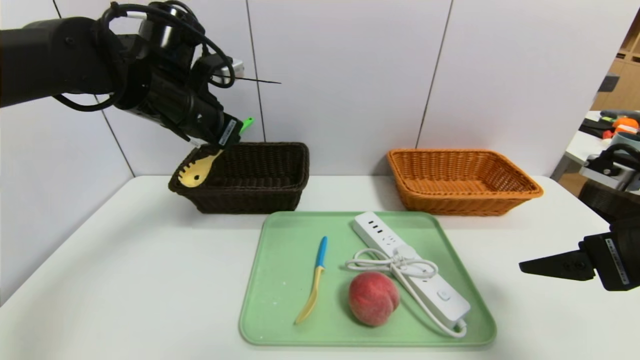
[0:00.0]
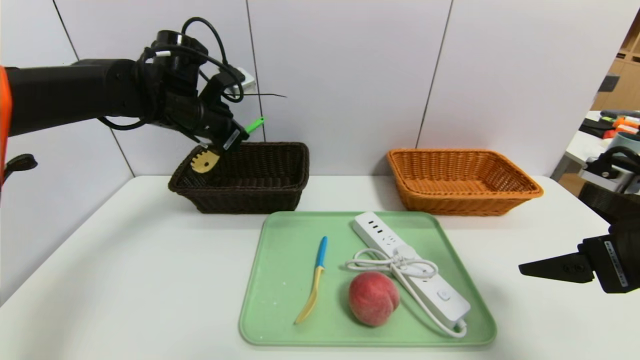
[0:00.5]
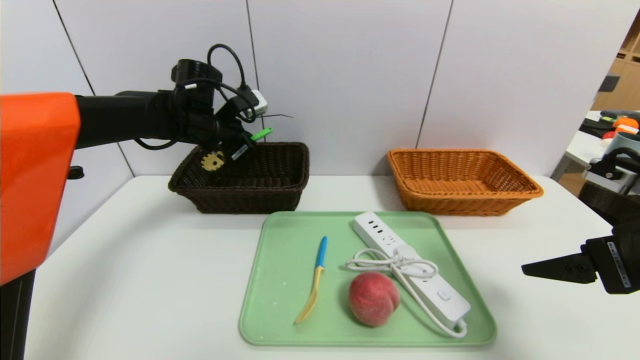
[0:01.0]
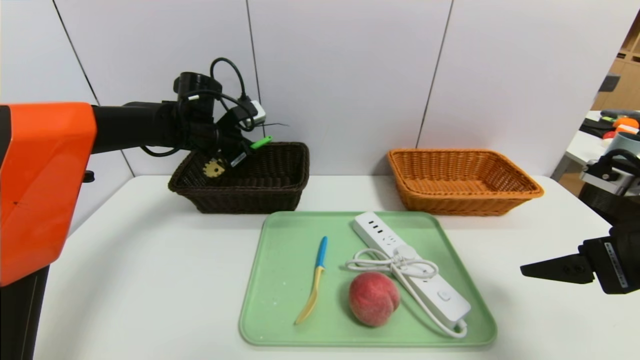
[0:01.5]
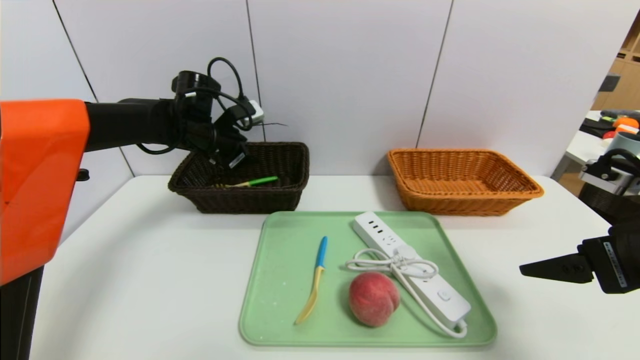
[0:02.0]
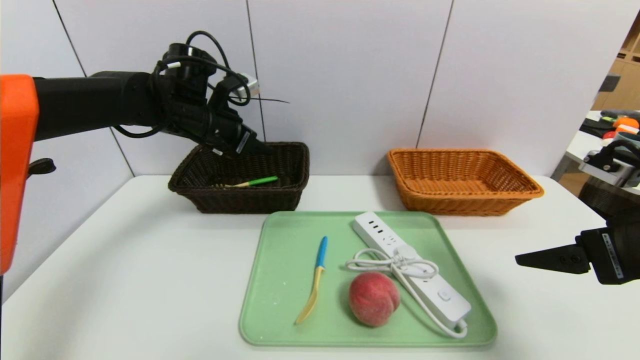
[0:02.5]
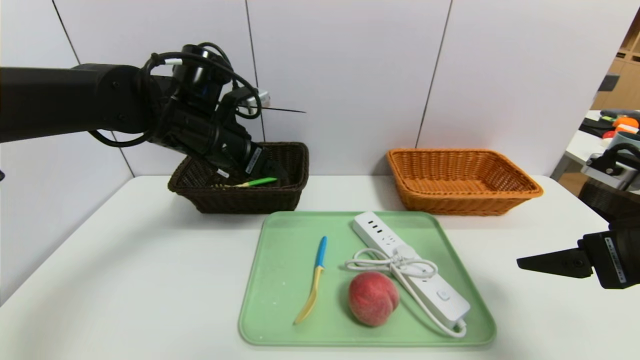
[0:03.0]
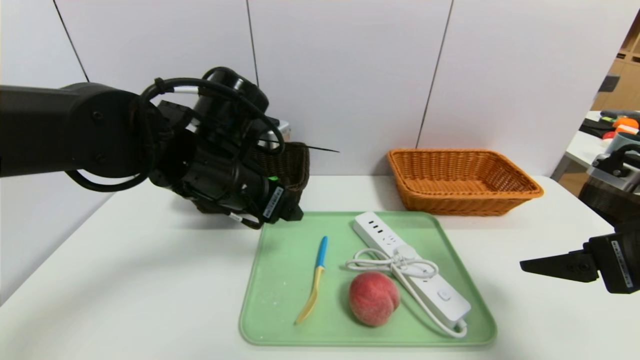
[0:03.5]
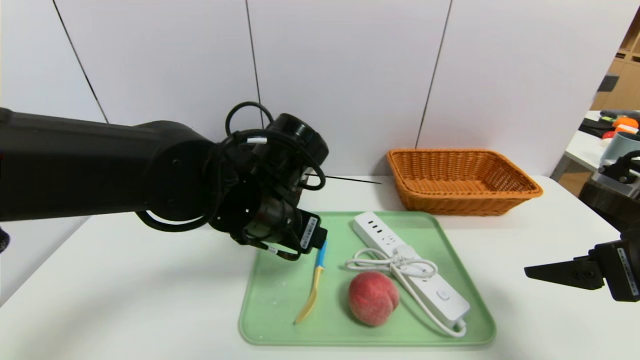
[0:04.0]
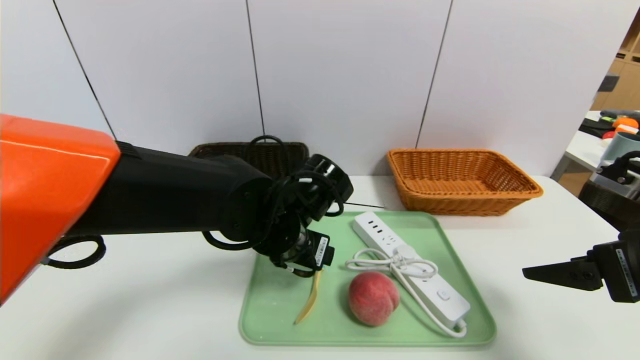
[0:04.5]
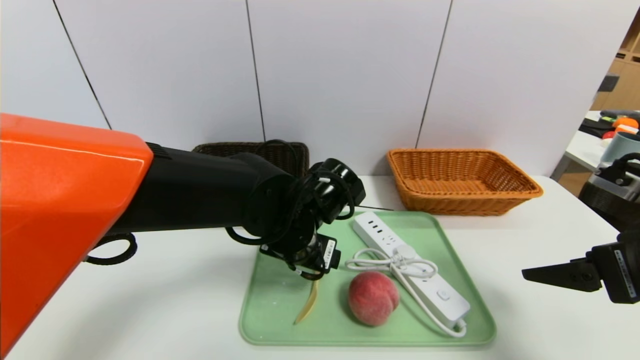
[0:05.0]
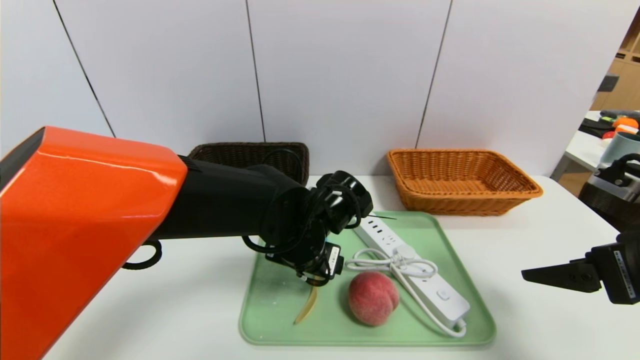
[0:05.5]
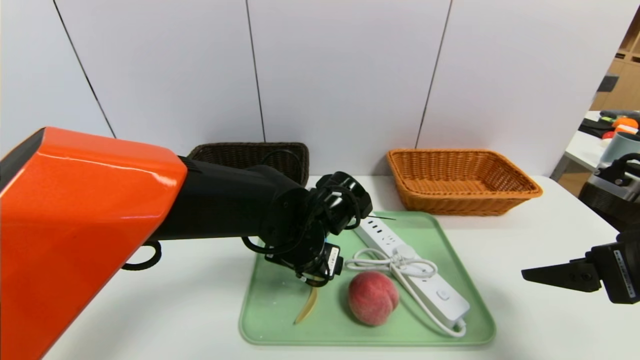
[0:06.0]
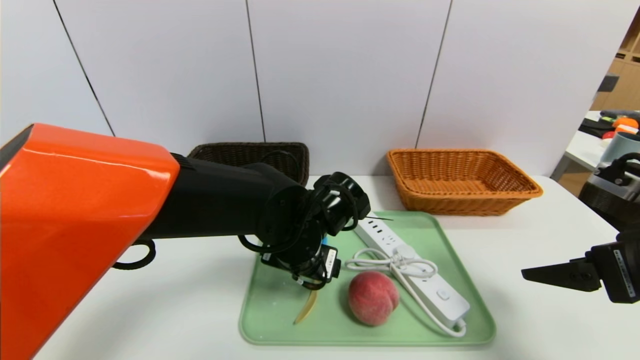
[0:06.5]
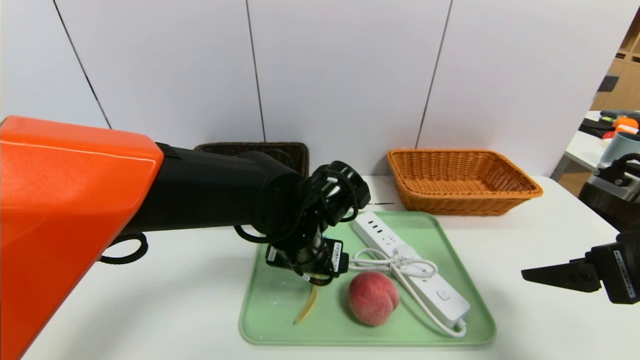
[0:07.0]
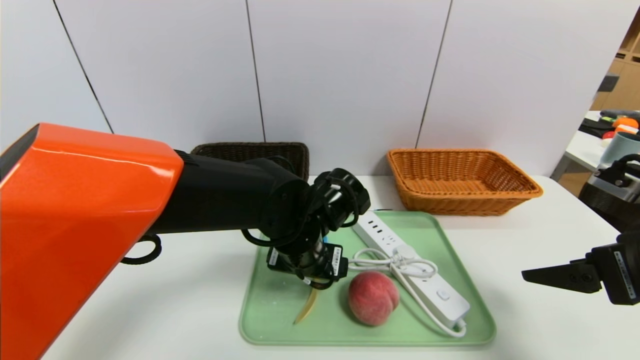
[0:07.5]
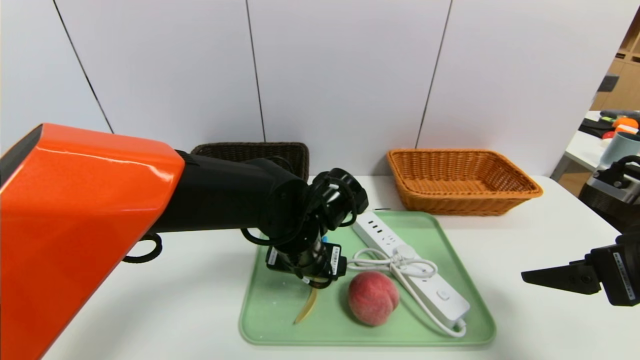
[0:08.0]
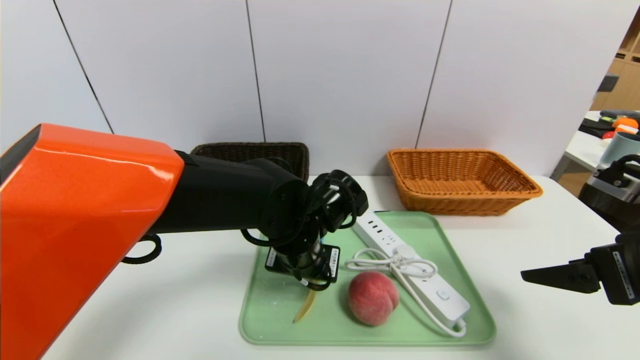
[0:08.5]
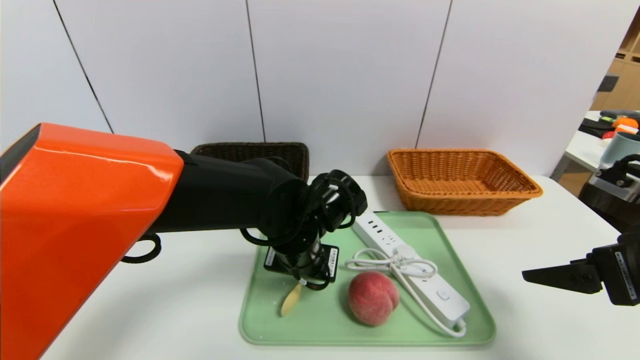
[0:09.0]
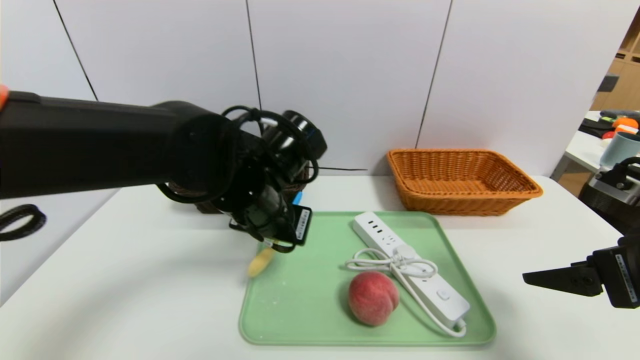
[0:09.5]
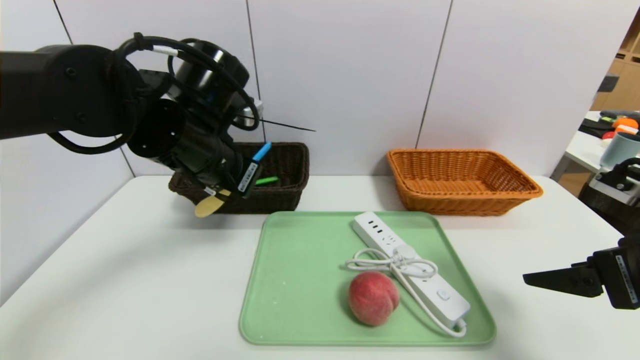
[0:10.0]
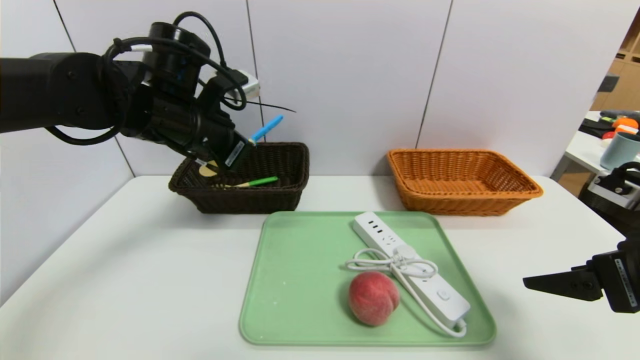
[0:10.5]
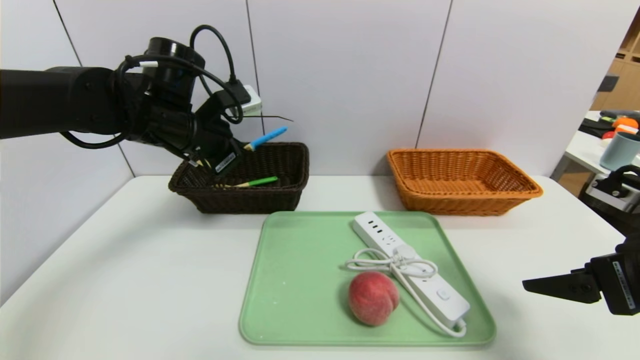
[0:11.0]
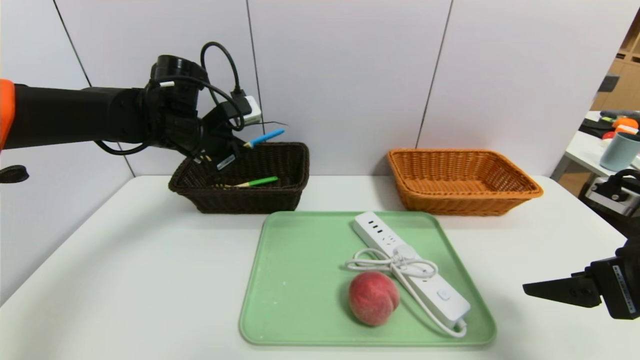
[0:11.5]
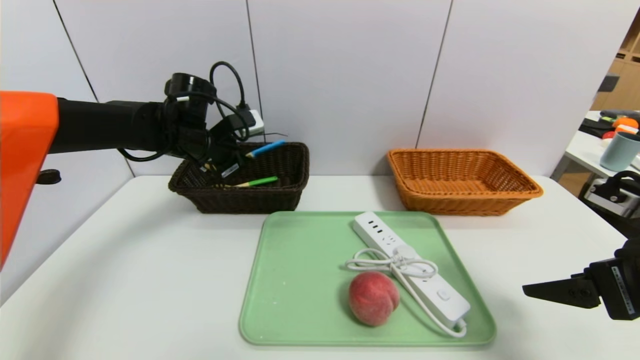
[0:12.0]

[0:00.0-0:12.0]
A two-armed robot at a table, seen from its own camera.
Task of the whole recording: place the food in the right basket with the right gripper, and place the non food items in the left basket with the left gripper.
Step, 0:00.0 to 0:02.5: Grasp the back scratcher and put it in the left basket.
0:00.0 to 0:02.0: The left gripper travels forward and downward by approximately 15 cm, and opens up.
0:02.0 to 0:04.0: The left gripper heads backward and to the right, covering some 25 cm.
0:04.0 to 0:06.0: The left gripper is displaced downward by roughly 5 cm.
0:06.0 to 0:08.0: The grippers move only a little.
0:08.0 to 0:10.0: The left gripper goes some 15 cm upward and to the left, and closes up.
0:10.0 to 0:12.0: The left gripper heads forward, to the left and downward, covering some 15 cm.

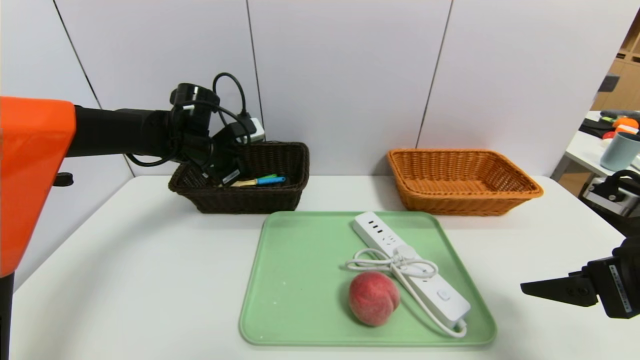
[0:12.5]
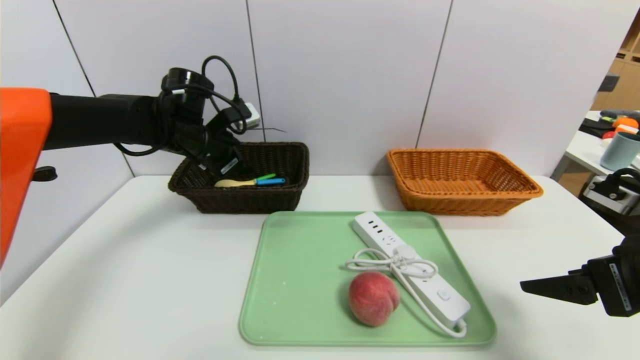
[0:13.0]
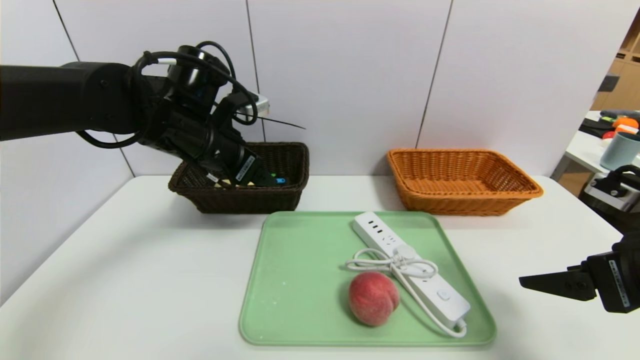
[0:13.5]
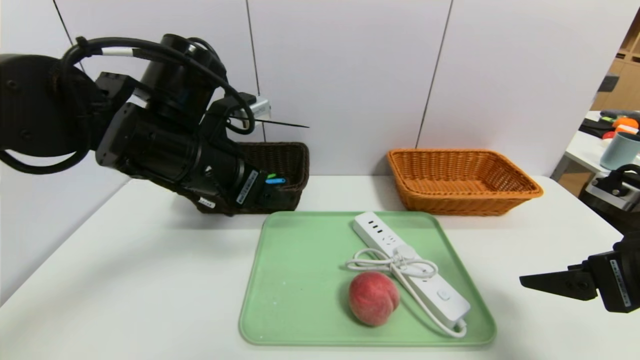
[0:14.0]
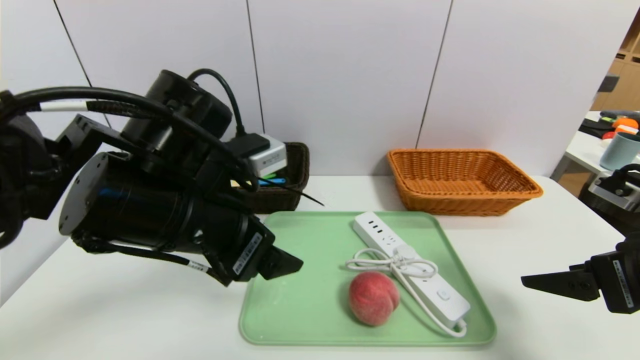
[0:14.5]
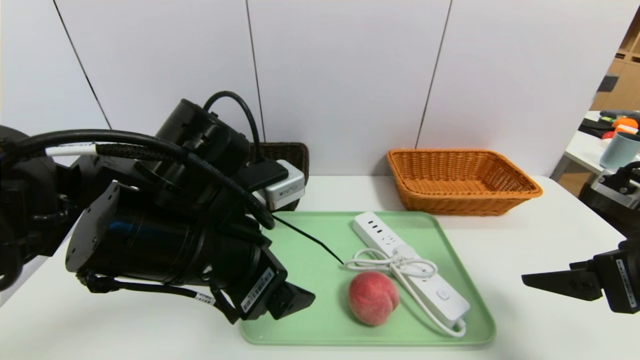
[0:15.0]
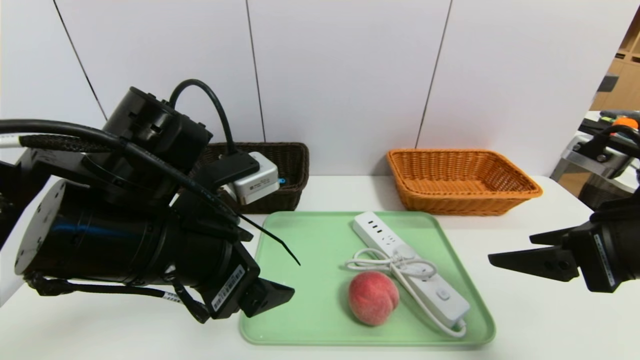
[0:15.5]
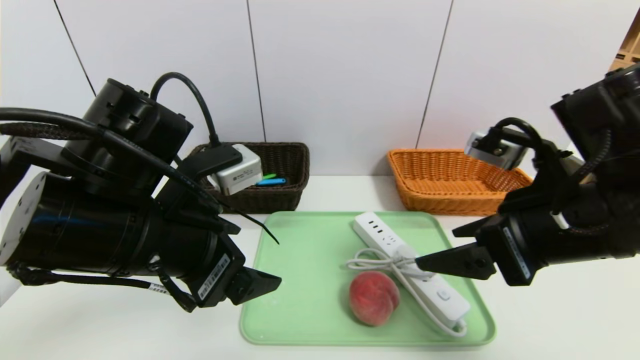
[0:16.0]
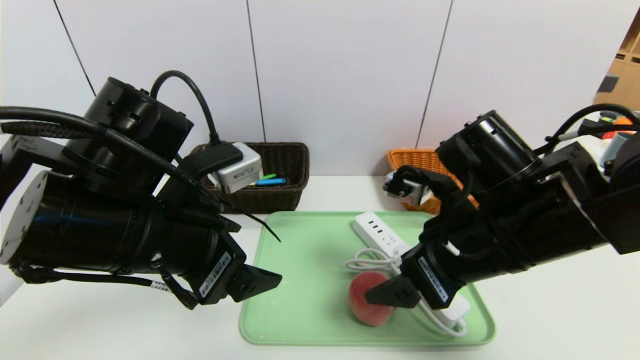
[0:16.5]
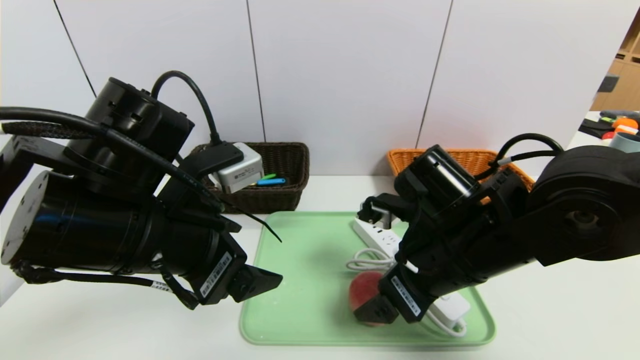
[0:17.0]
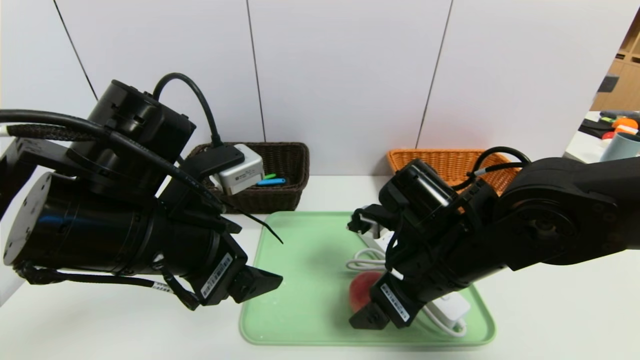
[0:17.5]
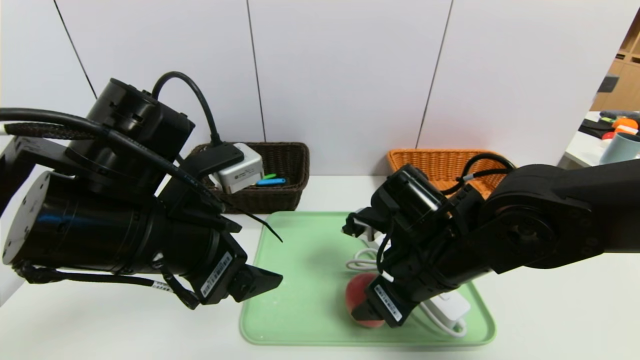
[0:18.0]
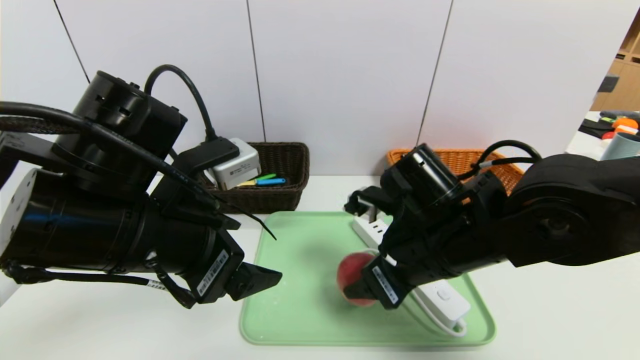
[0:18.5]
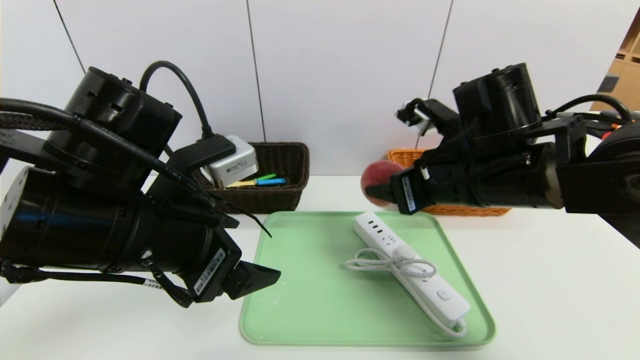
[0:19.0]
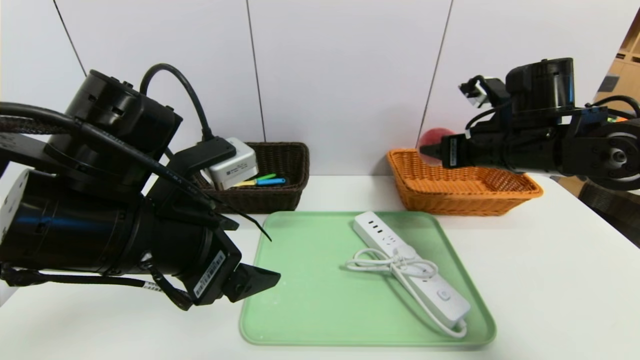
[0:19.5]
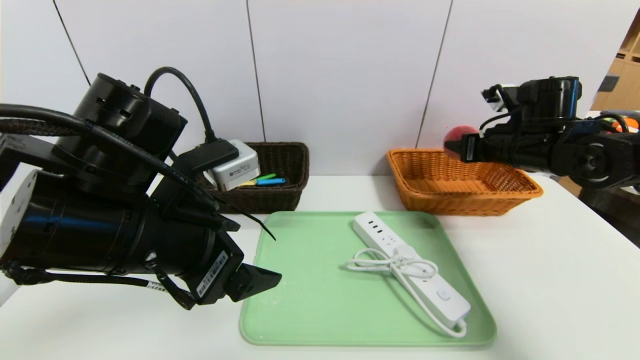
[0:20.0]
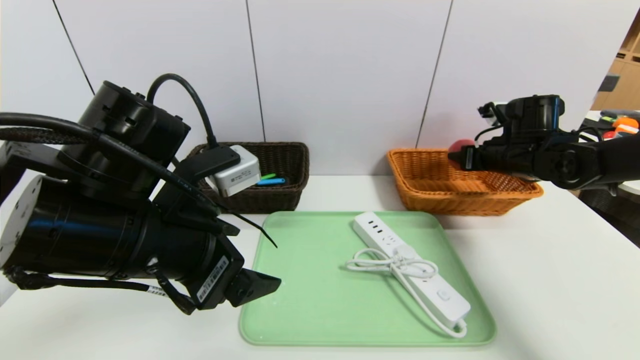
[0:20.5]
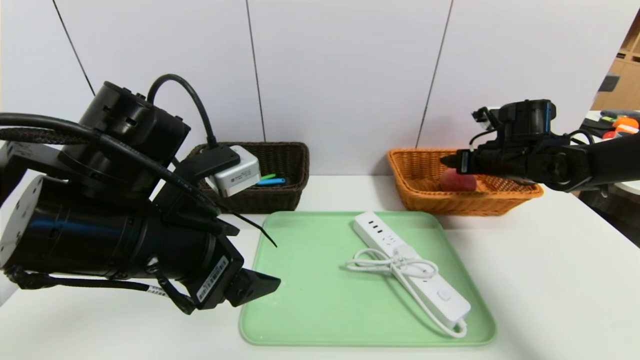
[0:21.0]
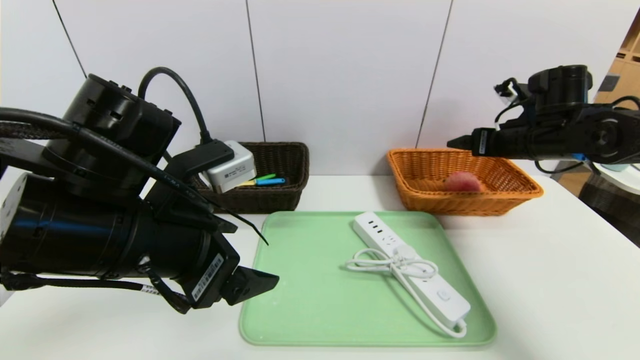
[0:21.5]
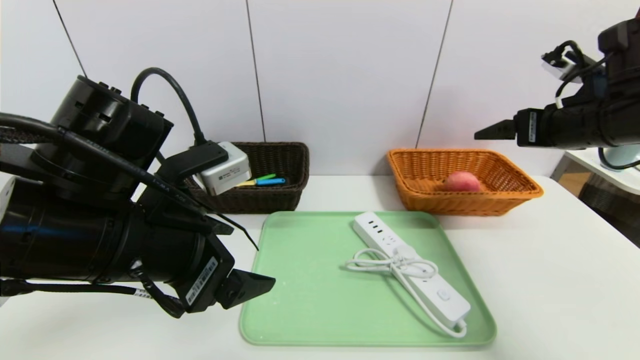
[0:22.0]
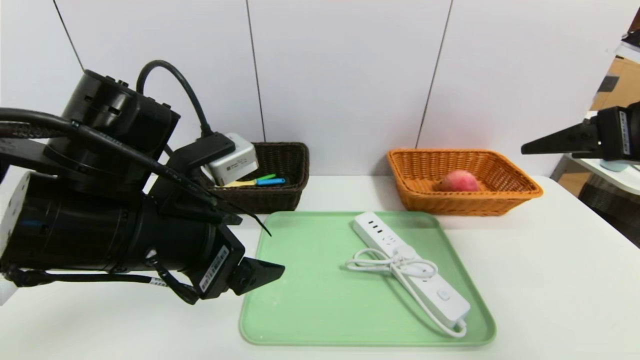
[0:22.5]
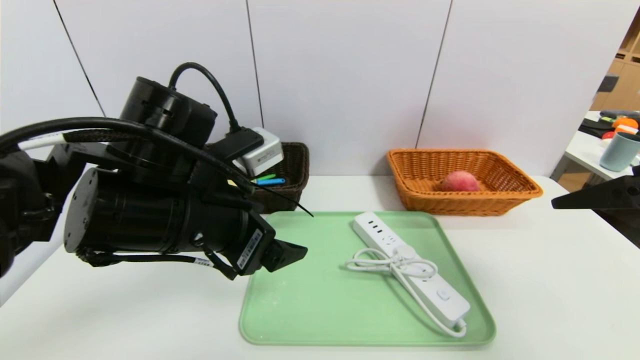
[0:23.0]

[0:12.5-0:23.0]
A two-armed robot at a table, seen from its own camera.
Task of the whole recording: place the food in the right basket with the right gripper, and place the non food items in the left basket with the left gripper.
Step, 0:14.0 to 0:21.5: Grasp the peach and put it in the right basket.
0:12.5 to 0:14.5: The left gripper moves backward, approximately 25 cm, and opens its fingers.
0:14.5 to 0:16.5: The right gripper moves to the left, some 15 cm.
0:16.5 to 0:19.0: The right gripper heads forward, covering roughly 5 cm, and closes.
0:19.0 to 0:21.0: The right gripper travels to the right, forward and downward by some 25 cm, and opens its fingers.
0:21.0 to 0:23.0: The right gripper shifts approximately 30 cm backward and upward.
